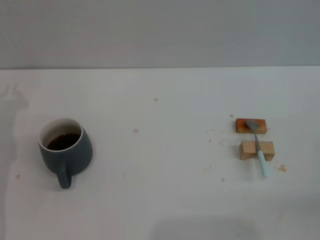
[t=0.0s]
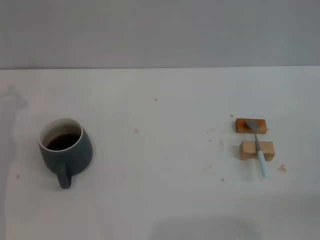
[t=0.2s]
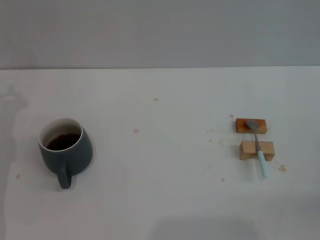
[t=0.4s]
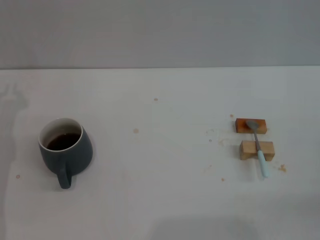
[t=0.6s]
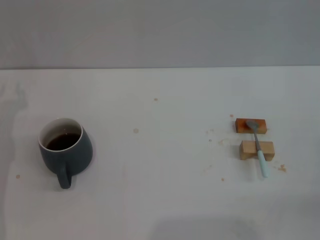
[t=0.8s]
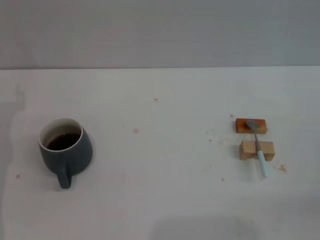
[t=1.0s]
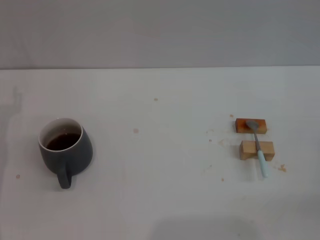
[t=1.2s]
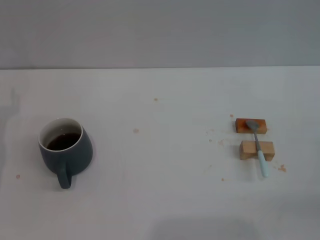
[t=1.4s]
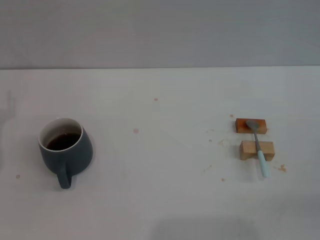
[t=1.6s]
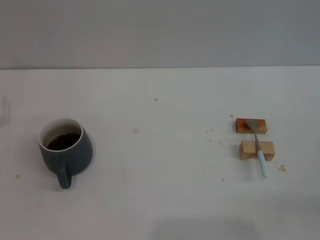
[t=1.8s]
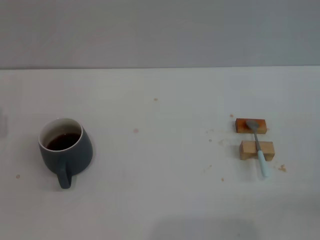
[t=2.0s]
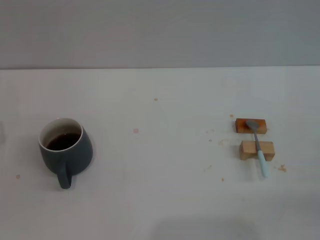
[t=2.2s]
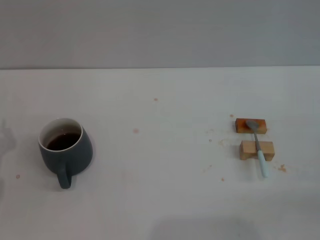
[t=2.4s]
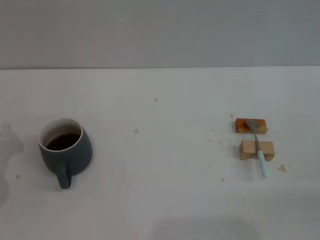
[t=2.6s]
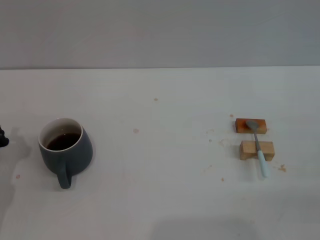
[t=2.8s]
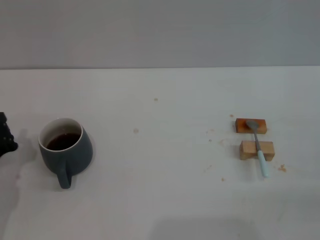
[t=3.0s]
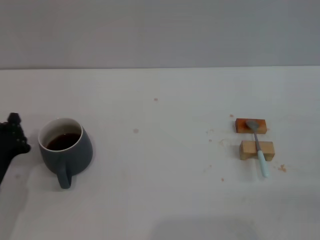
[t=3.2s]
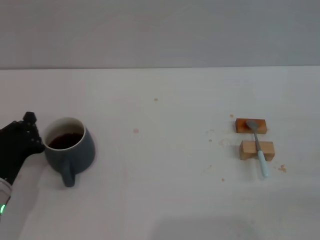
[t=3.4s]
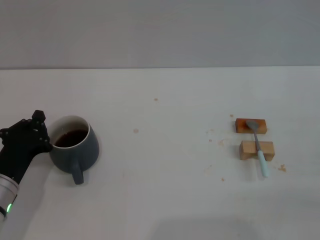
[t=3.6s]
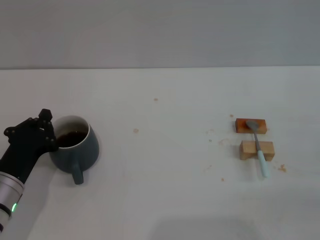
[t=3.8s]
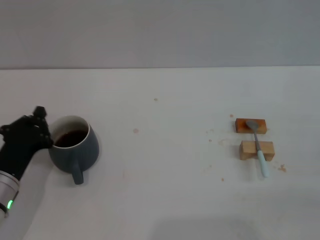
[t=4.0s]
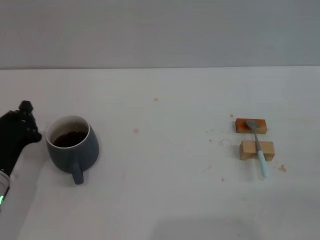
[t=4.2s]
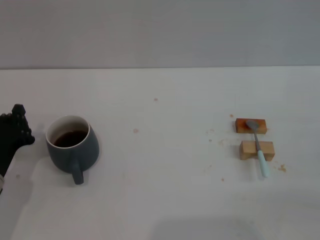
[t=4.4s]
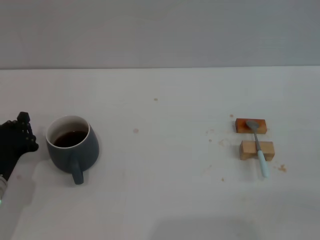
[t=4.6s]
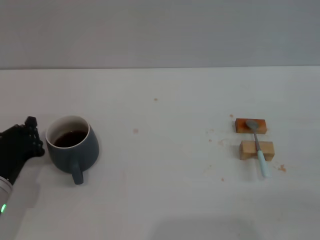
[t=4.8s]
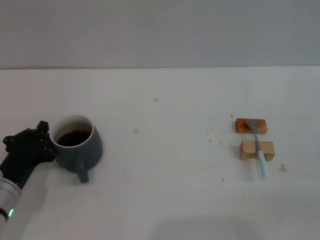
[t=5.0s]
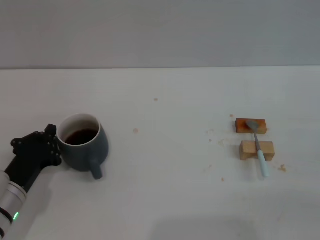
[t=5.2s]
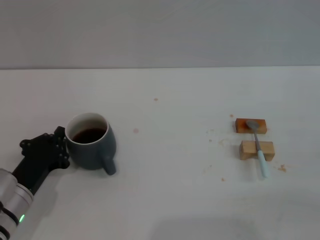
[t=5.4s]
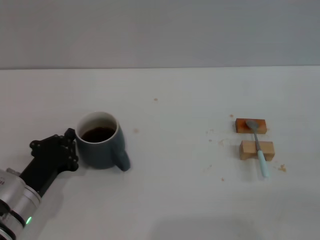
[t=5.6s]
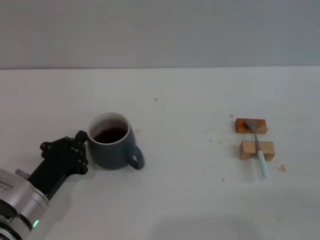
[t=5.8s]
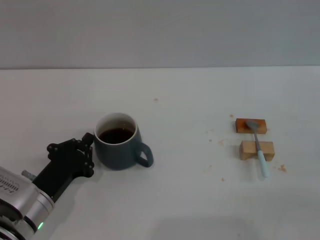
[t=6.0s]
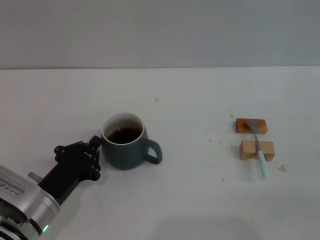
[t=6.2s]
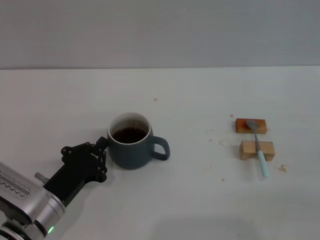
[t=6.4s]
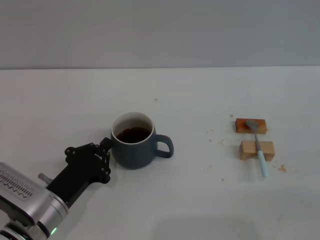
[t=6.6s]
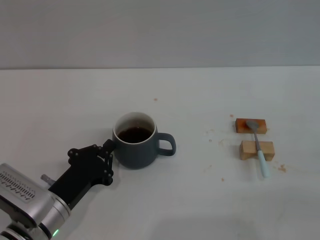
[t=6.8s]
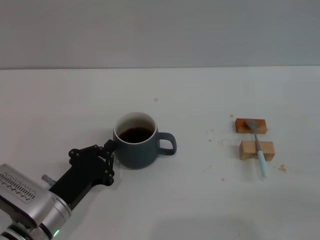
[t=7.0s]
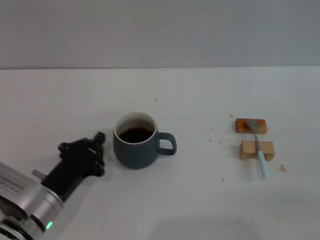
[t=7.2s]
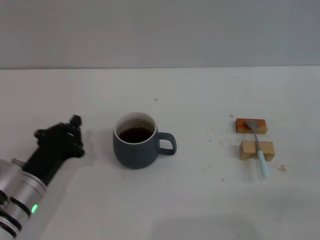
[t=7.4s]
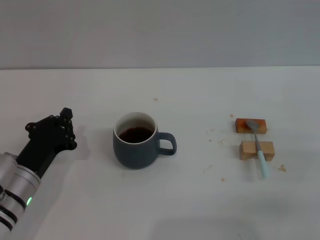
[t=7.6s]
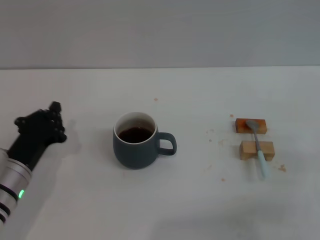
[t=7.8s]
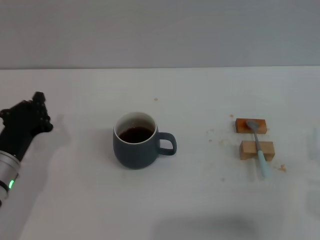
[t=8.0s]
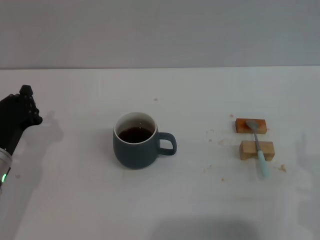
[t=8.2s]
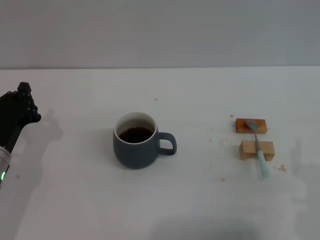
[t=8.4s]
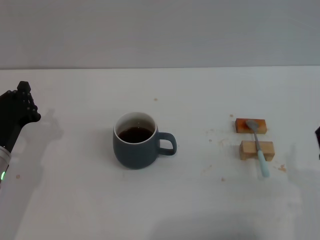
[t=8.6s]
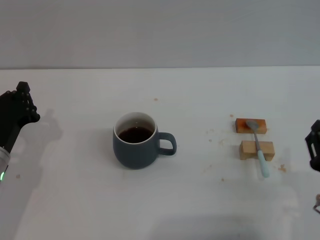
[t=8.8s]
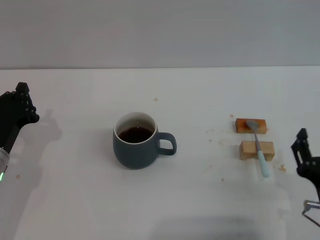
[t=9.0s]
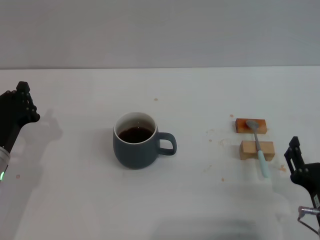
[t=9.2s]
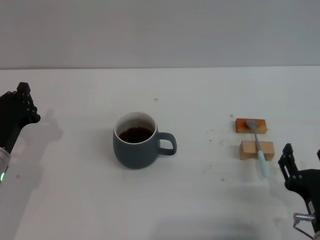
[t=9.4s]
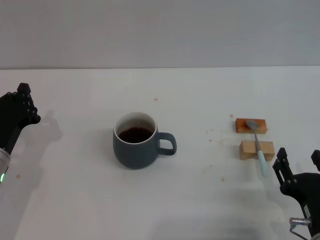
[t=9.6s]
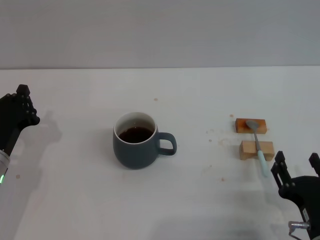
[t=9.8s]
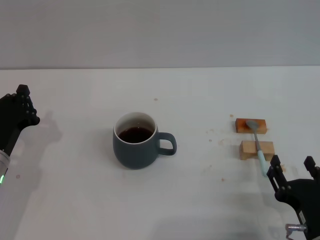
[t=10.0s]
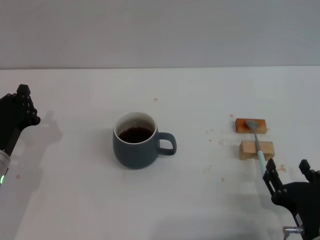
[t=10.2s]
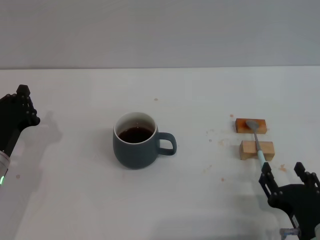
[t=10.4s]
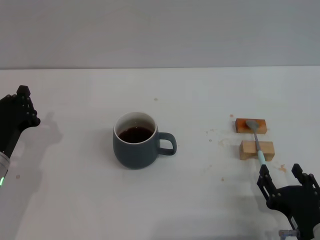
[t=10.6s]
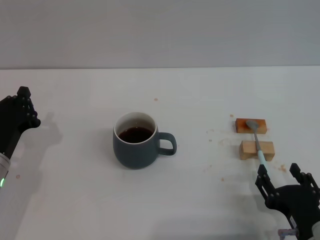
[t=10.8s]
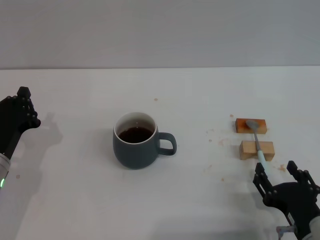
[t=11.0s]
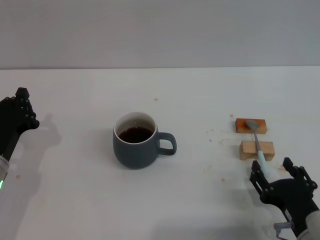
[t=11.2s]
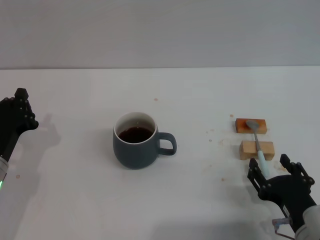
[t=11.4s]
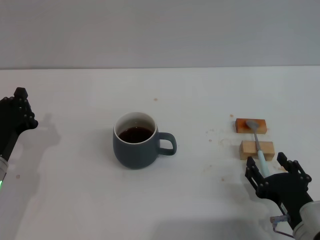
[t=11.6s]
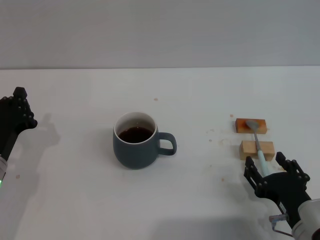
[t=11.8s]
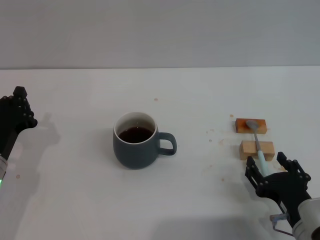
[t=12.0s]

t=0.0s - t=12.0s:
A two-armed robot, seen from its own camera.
Task of the whole recording: Move the grey cup to the center, lift the blue spoon, stir it three times in the cup, and put the spoon into the cup.
Step, t=0.0s - t=7.4s: Move the cup with coffee to the center of view with the left gripper.
t=1.6s - t=3.0s: The left gripper is displaced downward and backward by some 10 cm, and closes its fingers.
t=3.0s - t=4.4s: The grippers make only small movements.
t=4.4s - t=6.0s: The left gripper heads to the right, covering some 5 cm.
t=6.0s - t=7.6s: The right gripper is displaced to the left by some 5 cm.
t=7.6s - t=9.0s: The right gripper is displaced to the left and backward by about 10 cm.
t=9.0s - t=10.4s: The grippers stay close to where they were, moving slightly.
t=10.4s - t=12.0s: The grippers move only a little.

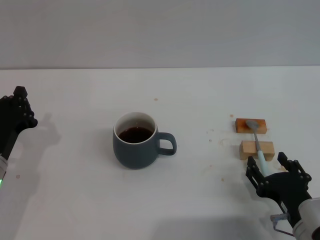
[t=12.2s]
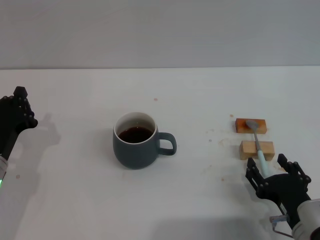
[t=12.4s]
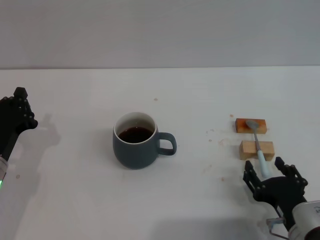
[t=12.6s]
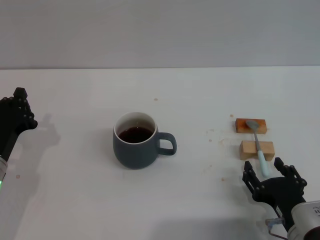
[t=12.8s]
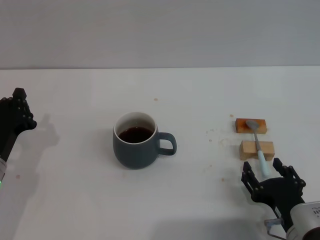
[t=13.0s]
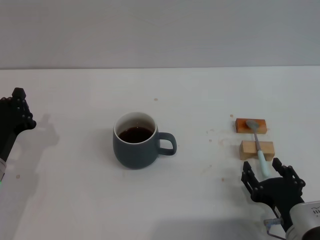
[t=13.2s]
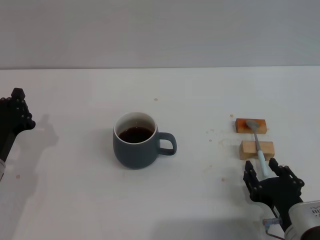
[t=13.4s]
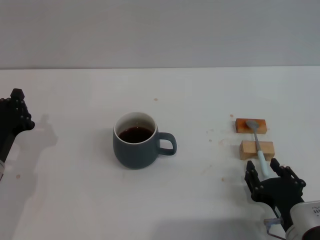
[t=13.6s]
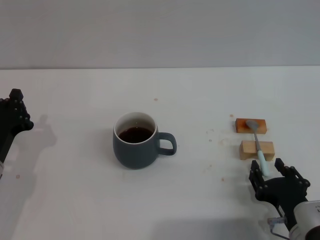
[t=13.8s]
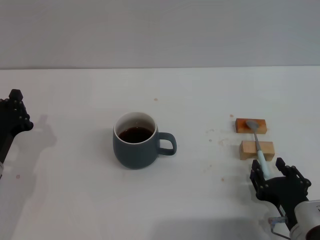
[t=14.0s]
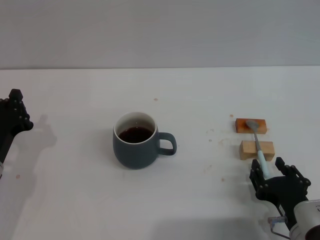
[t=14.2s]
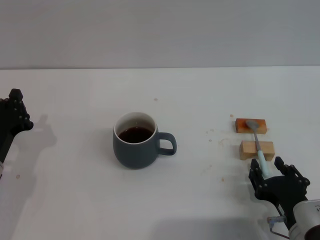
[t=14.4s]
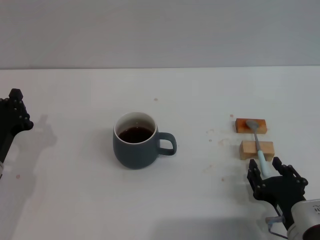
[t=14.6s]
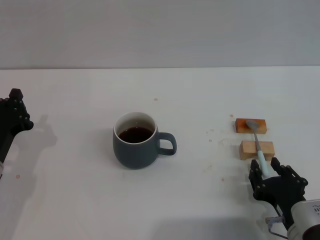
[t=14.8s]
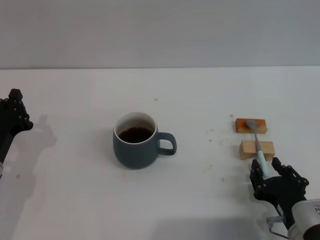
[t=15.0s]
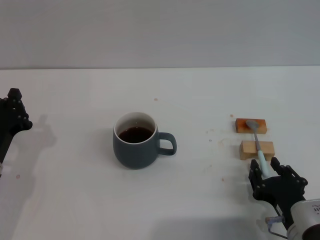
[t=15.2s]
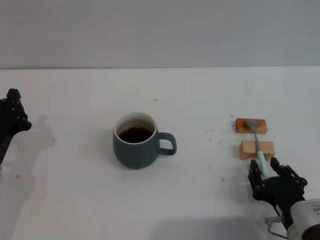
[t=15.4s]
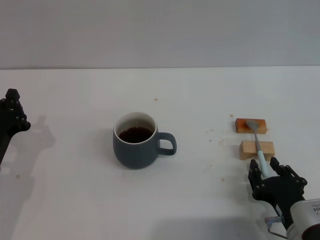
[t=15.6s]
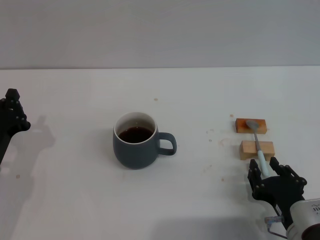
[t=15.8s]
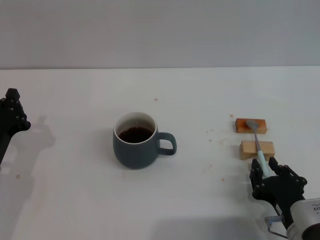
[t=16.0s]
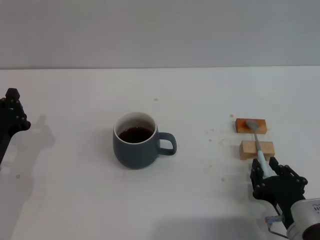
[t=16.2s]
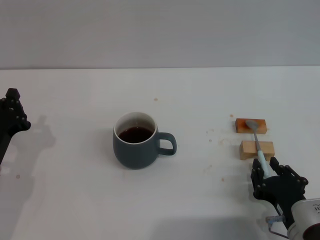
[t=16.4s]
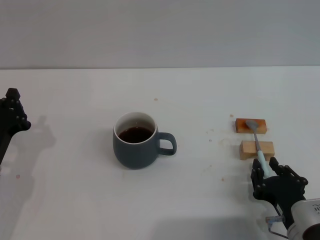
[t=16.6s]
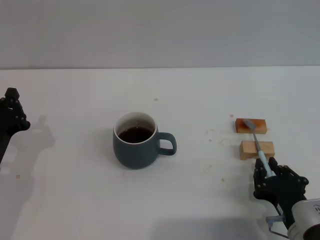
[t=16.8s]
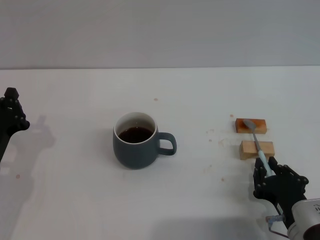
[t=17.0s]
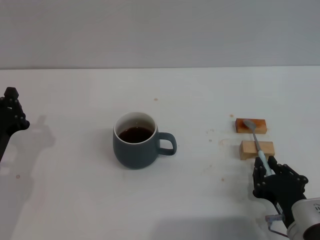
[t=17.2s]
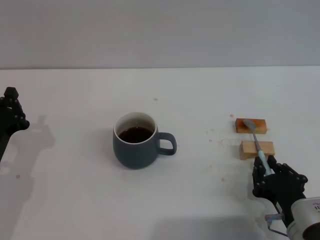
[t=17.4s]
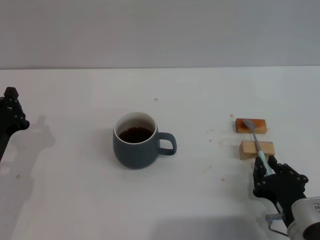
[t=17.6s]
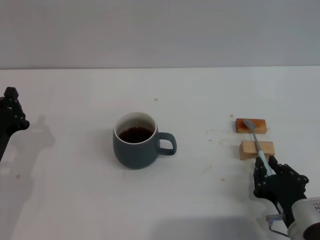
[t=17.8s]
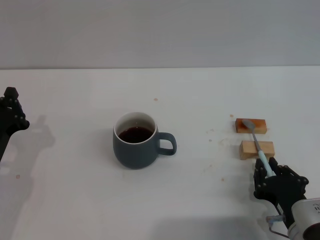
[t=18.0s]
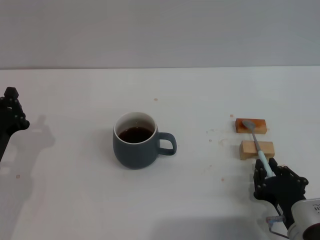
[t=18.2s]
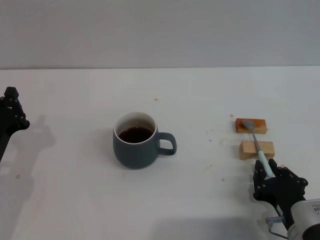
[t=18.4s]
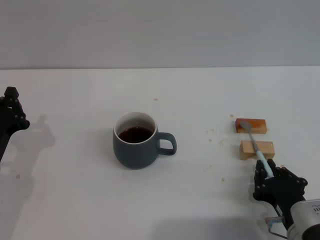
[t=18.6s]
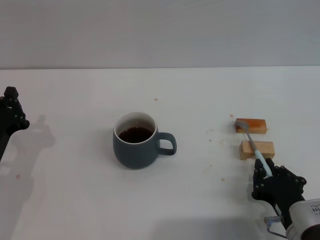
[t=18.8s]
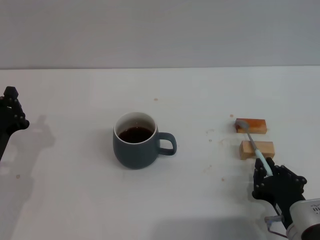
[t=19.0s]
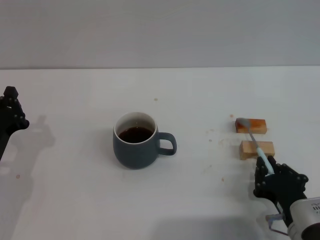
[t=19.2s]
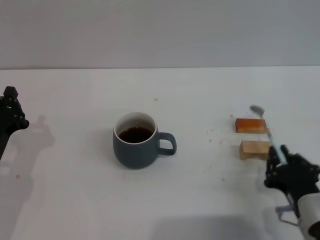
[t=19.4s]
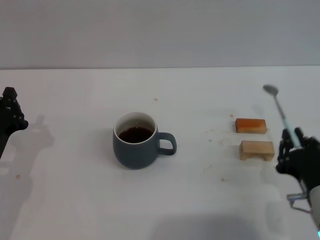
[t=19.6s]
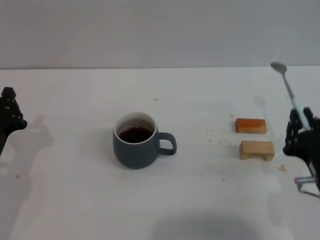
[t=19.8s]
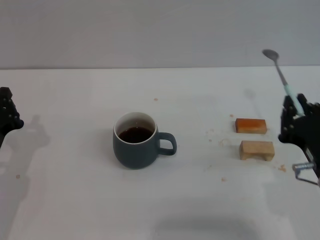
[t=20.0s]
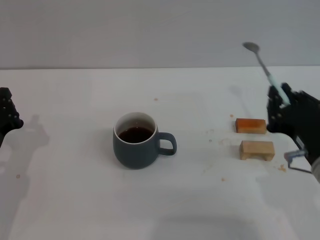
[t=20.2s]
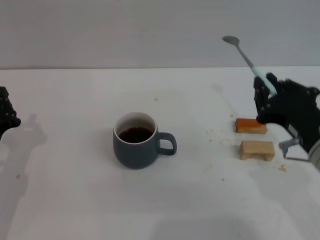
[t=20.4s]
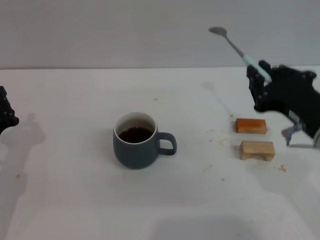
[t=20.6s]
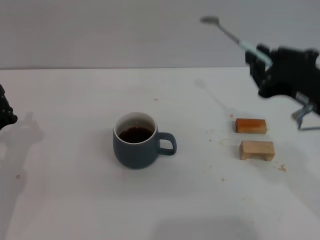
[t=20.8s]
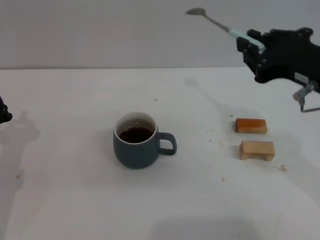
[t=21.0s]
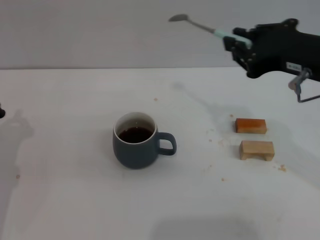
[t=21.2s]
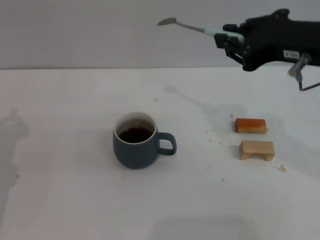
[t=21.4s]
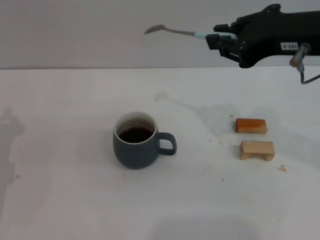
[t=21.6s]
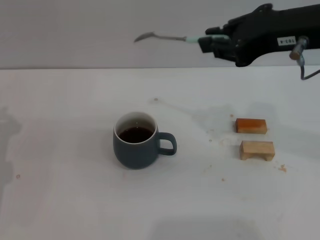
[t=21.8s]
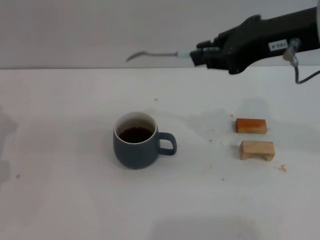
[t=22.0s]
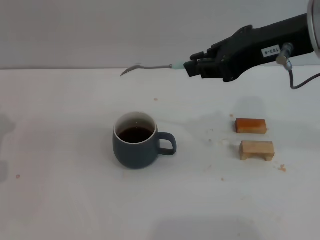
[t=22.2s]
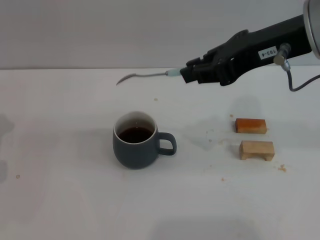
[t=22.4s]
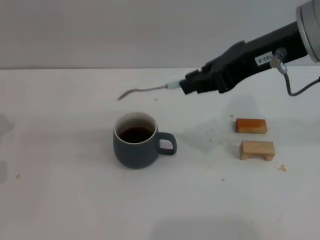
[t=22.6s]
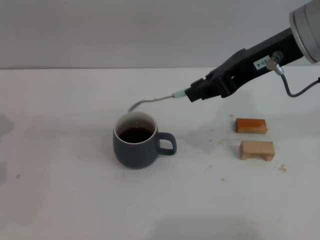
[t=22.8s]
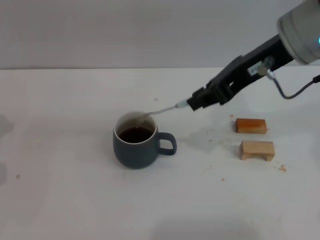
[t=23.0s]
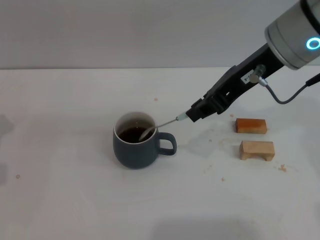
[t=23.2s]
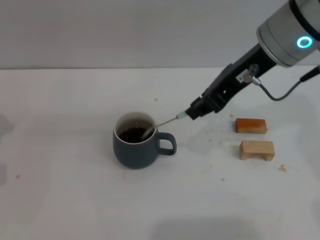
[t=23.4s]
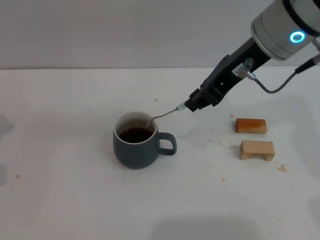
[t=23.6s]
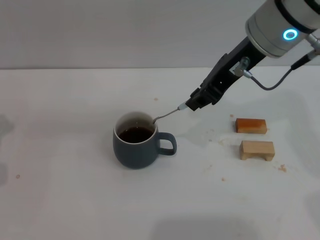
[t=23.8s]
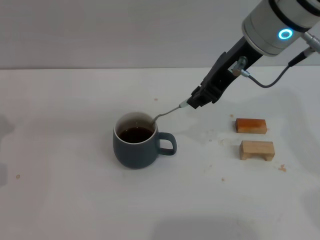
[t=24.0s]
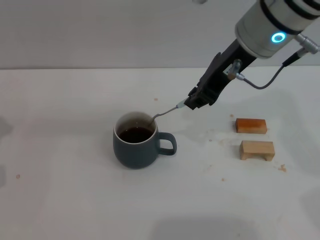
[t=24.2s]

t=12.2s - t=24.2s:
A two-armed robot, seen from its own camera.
Task of the whole recording: Move the grey cup to the center, lift the blue spoon, stir it three times in the cup, and put the spoon into the cup.
Step, t=12.2s - t=19.8s: Pick up the spoon with the right gripper.
t=12.2s - t=18.2s: Both grippers stay about where they are.
t=18.2s - t=19.8s: The right gripper is displaced upward by roughly 10 cm.
t=19.8s - t=21.2s: The right gripper travels upward and forward by roughly 20 cm.
t=21.2s - t=22.6s: The right gripper ends up roughly 5 cm from where it was.
t=22.6s - t=24.2s: The right gripper travels to the left and forward by some 10 cm.
